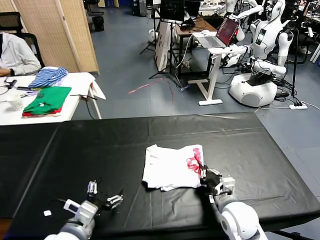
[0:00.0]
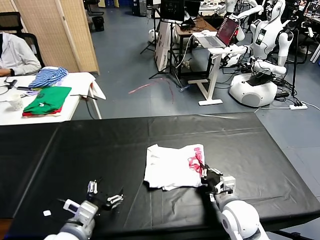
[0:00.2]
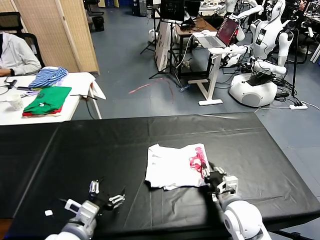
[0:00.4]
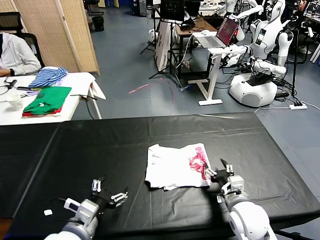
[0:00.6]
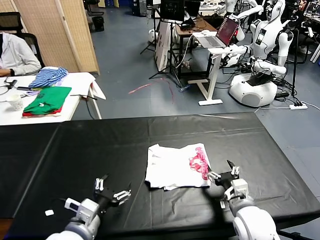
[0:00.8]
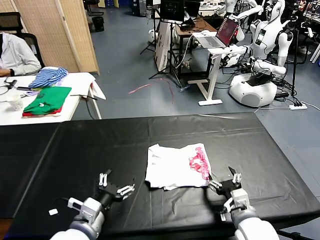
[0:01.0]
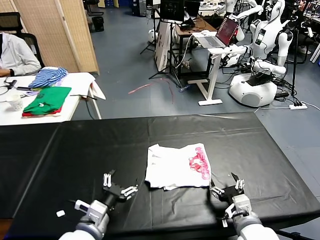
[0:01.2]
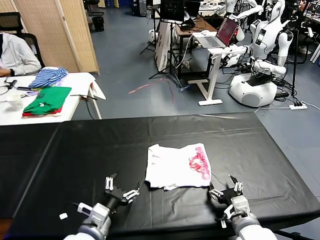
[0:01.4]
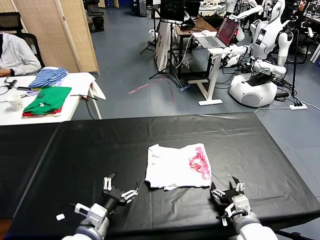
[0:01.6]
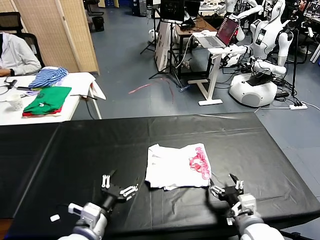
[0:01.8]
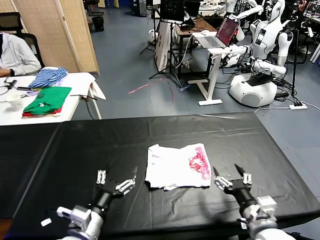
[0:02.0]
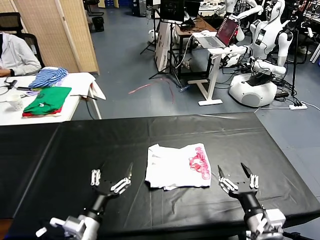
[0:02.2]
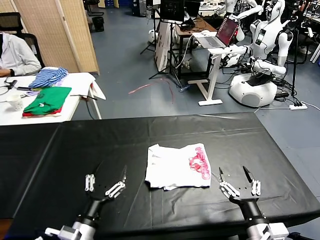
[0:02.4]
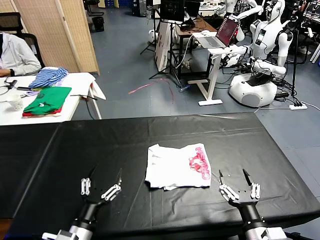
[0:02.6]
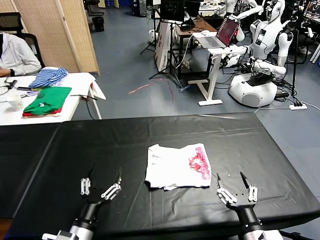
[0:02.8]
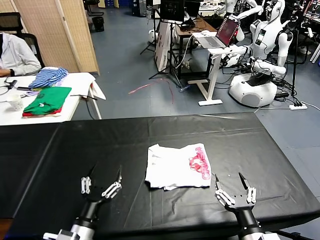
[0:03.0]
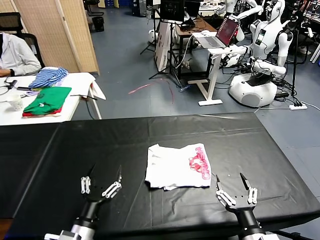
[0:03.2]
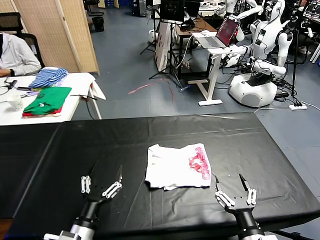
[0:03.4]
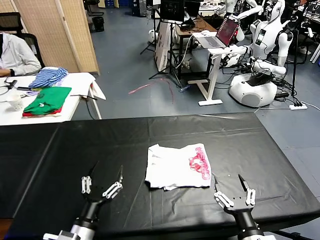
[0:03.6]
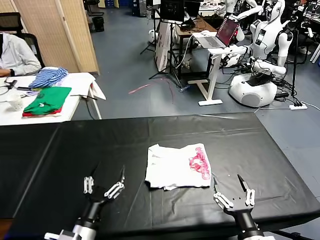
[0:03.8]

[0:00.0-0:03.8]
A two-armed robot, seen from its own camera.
Task of the whole recording: fold and organize the clothes.
0:00.0 to 0:01.2: The right gripper shifts approximately 5 cm backward, and opens up.
0:01.2 to 0:02.6: The right gripper heads backward, covering some 5 cm; the left gripper changes place by some 5 cm.
0:02.6 to 0:03.8: The grippers move only a little.
